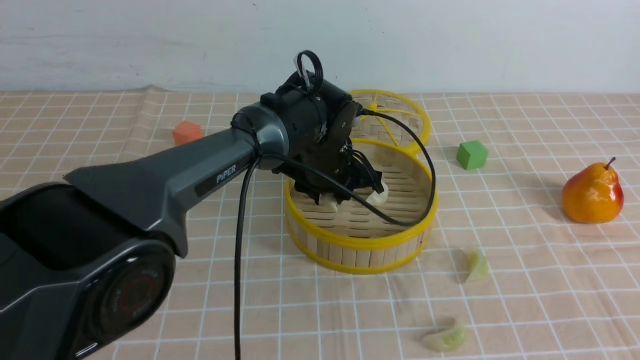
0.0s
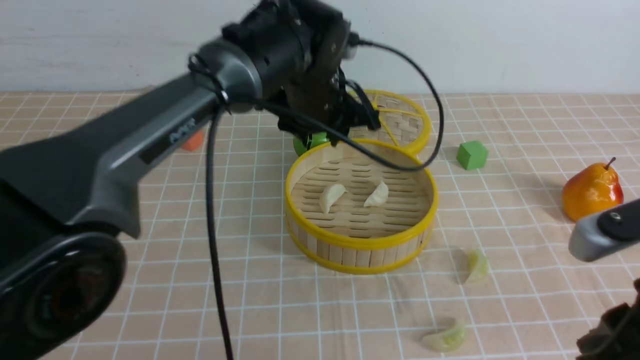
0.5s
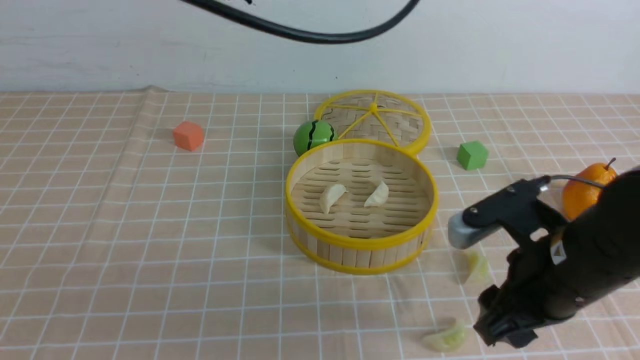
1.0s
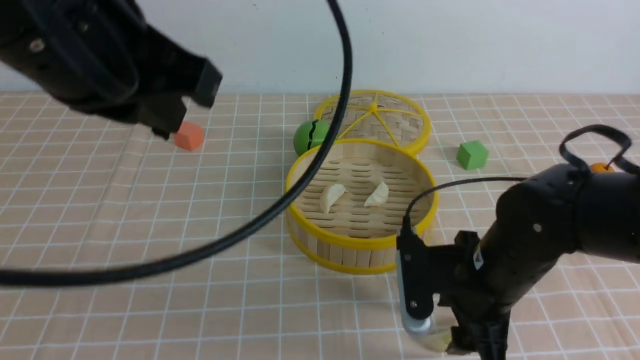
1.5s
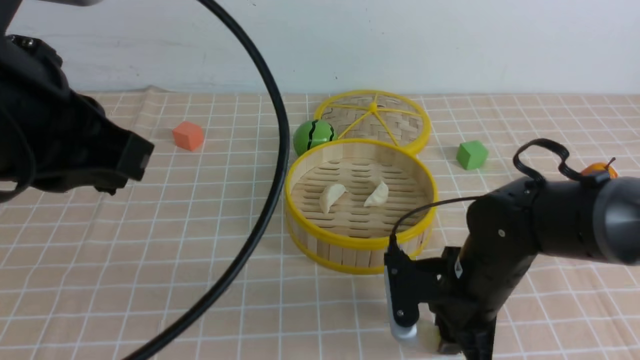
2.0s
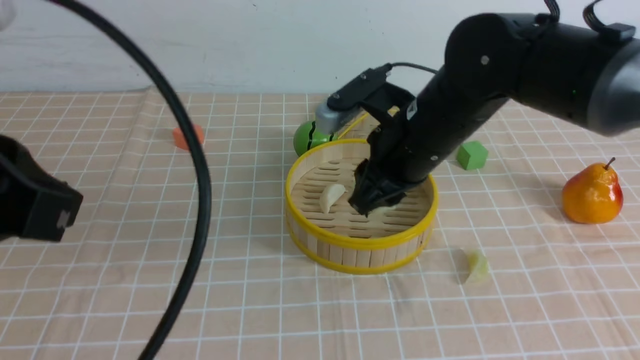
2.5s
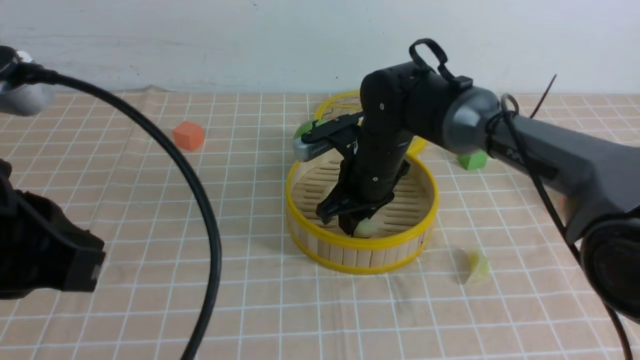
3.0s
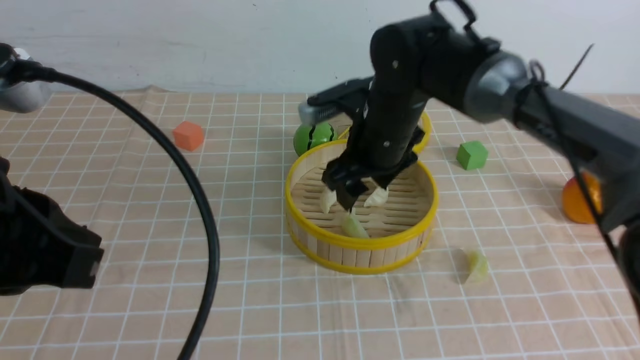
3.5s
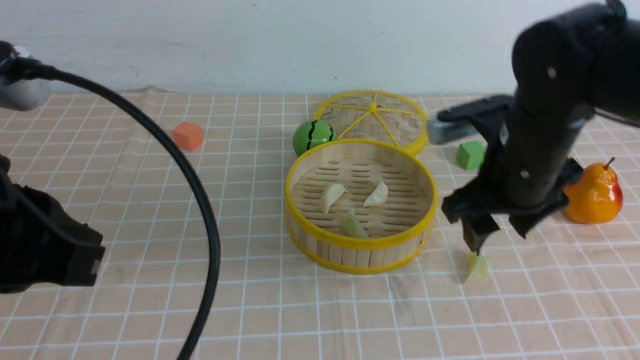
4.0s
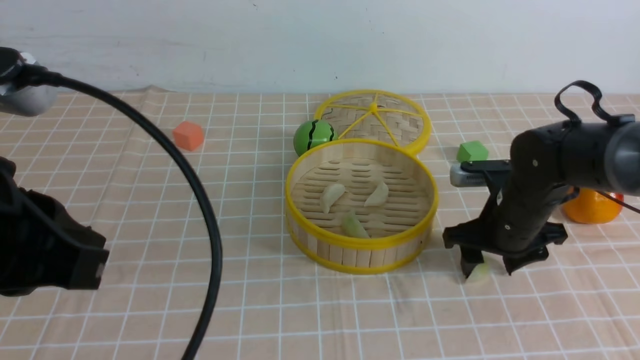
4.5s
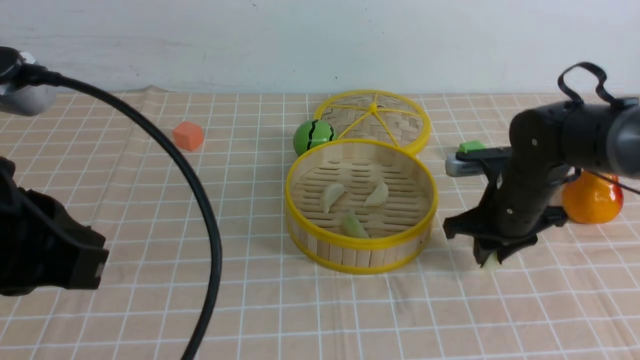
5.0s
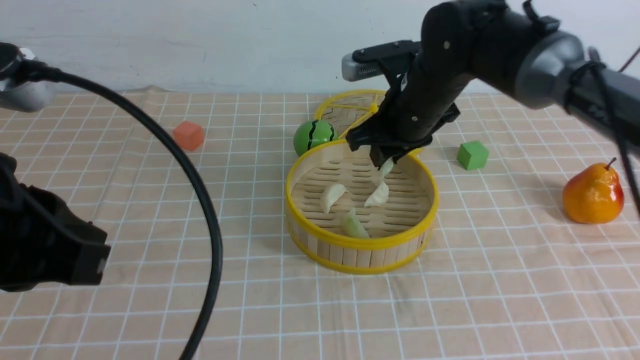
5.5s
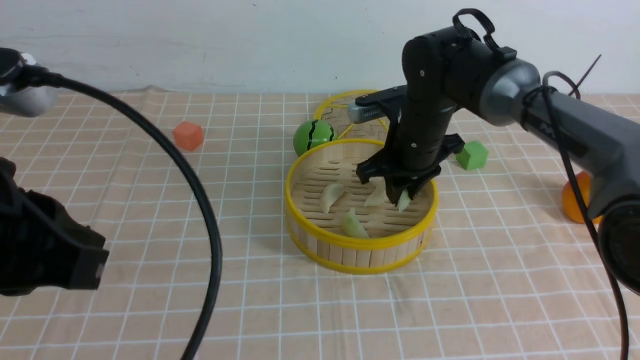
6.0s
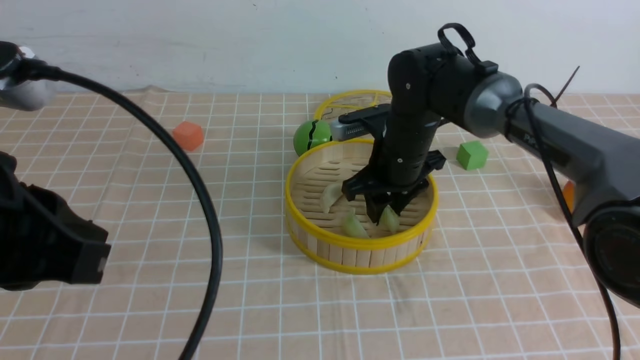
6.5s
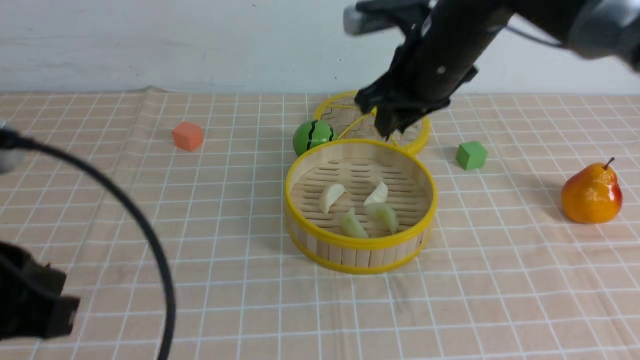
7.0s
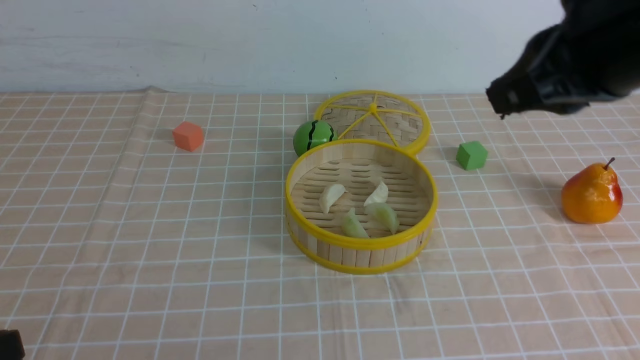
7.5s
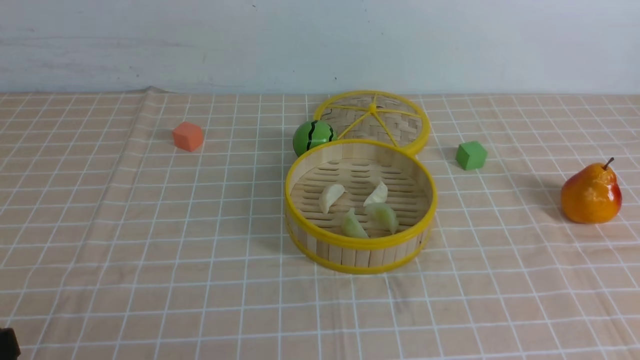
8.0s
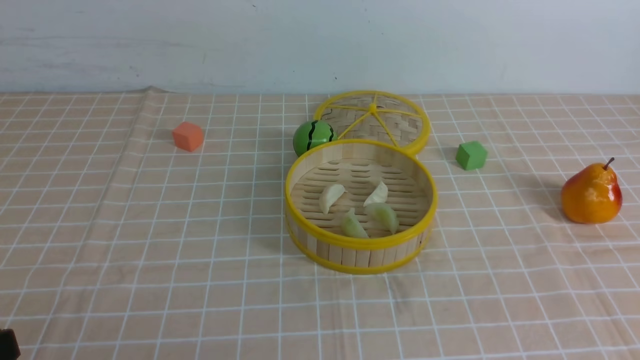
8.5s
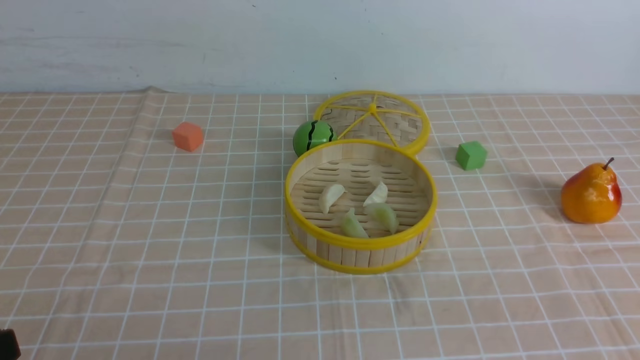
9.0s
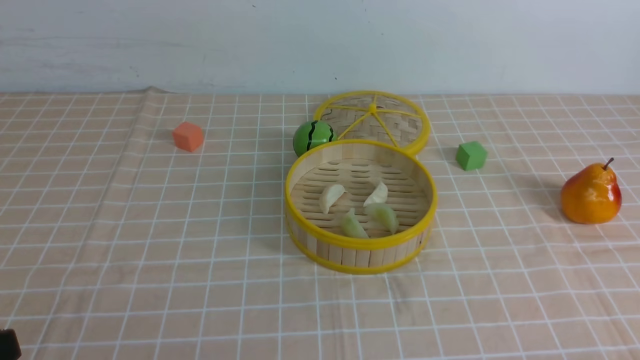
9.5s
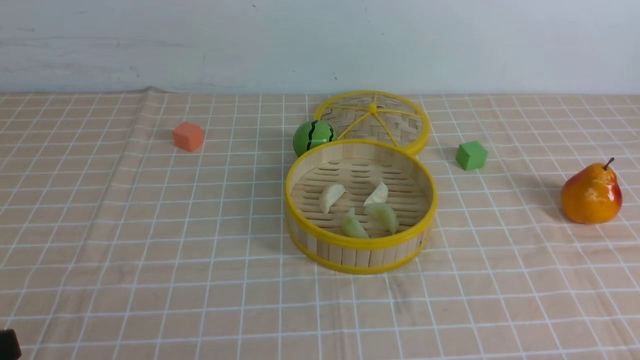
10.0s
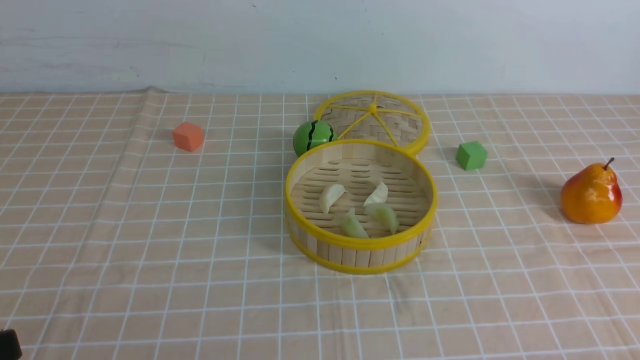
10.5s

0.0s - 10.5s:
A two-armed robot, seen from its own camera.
Task of the whole recording: put the dumplings into the steamer on the table with the brown tablecloth.
Step, 1.0s - 1.5s: Grasp the dumpling with right gripper.
Step, 2.0s - 3.5s: Place the dumpling on the steamer with right gripper.
Step, 4.0s - 4.5s: Grasp the dumpling with right gripper.
Step, 5.0s - 6.5s: Place the dumpling on the steamer with right gripper.
0.0s - 2.0s: The right gripper shifts about 25 cm forward, downward and to the left, and opens and closes again. The left gripper shifts some 40 cm backward, upward and to the left, and closes its fingers.
2.0s - 4.0s: The right gripper goes roughly 10 cm upward and forward, and opens up. Meanwhile the left gripper ends up approximately 5 cm from where it was.
4.0s - 6.5s: The right gripper heads forward, to the left and downward, covering about 15 cm, and closes its fingers.
6.5s - 8.5s: The right gripper heads backward, to the right and upward, covering approximately 40 cm, and closes up, while the left gripper shifts approximately 15 cm downward, backward and to the left.

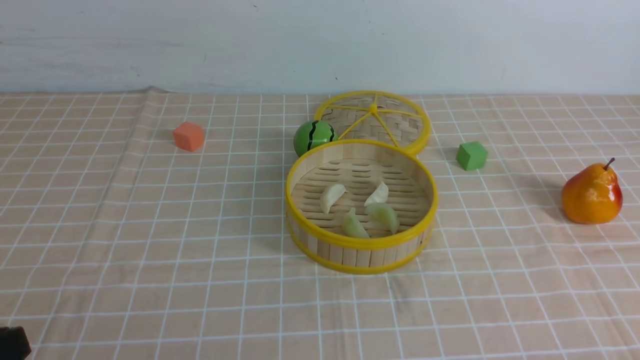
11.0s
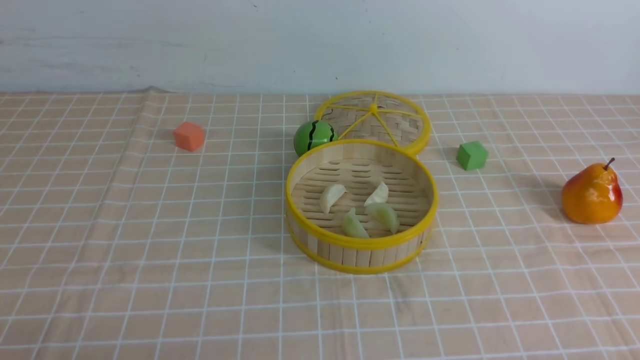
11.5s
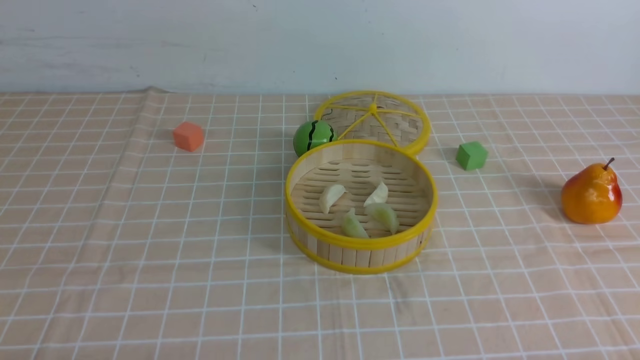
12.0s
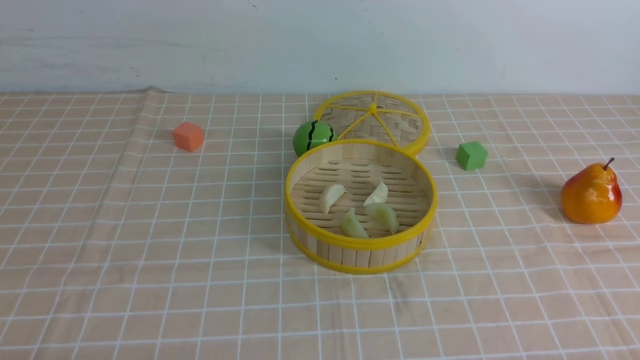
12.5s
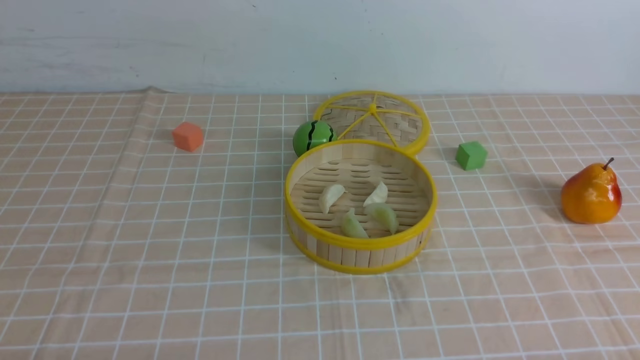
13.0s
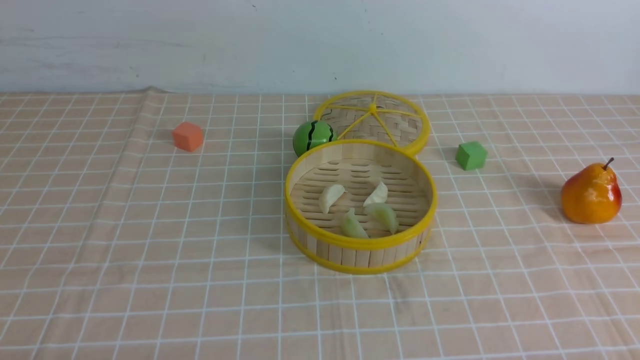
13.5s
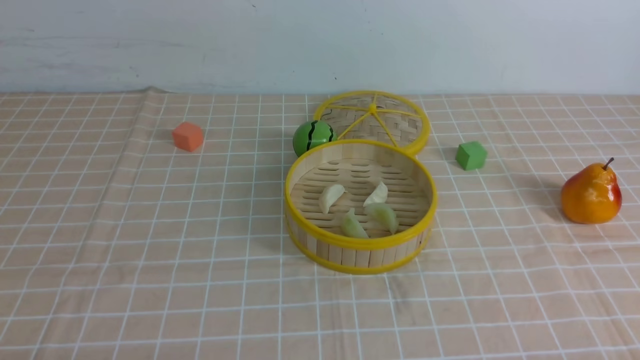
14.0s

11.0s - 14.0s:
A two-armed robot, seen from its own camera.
Task of the whole recording: put the dumplings into the steamer on the table with the brown tablecloth.
12.5s - 14.0s: Neither gripper changes place.
